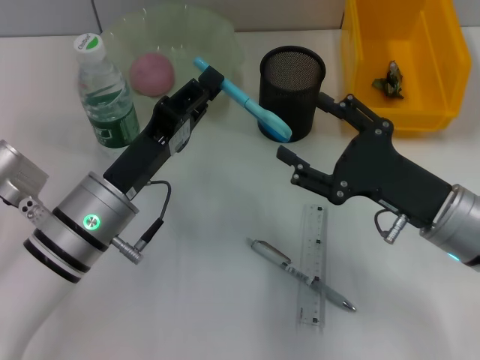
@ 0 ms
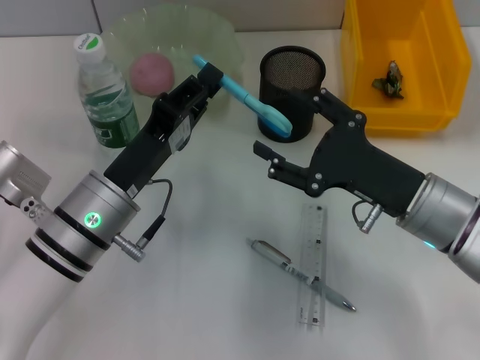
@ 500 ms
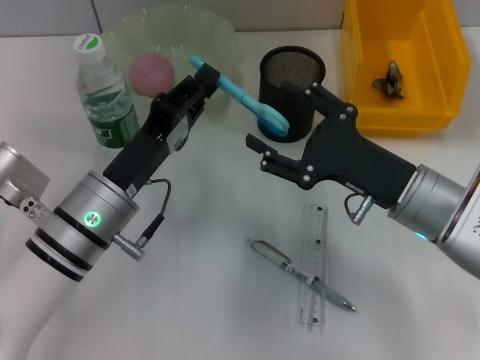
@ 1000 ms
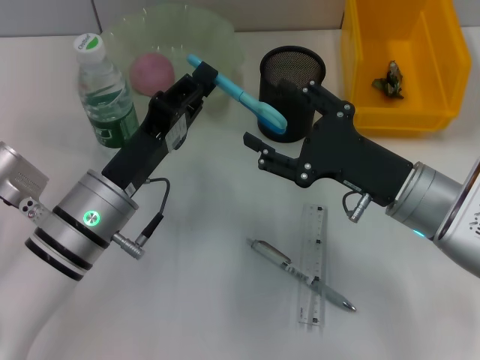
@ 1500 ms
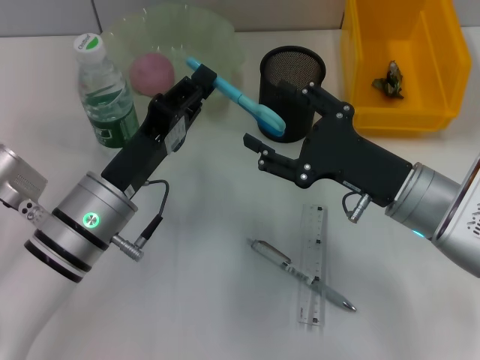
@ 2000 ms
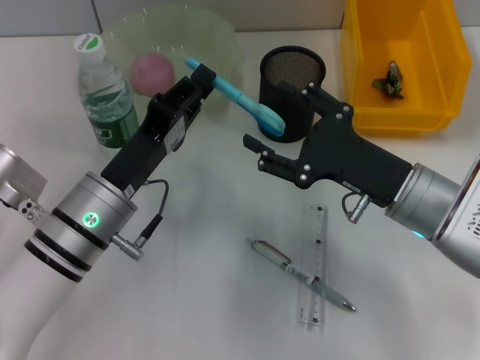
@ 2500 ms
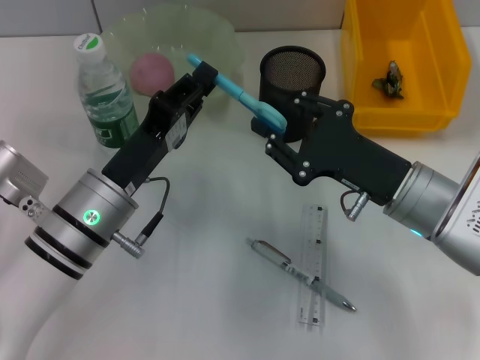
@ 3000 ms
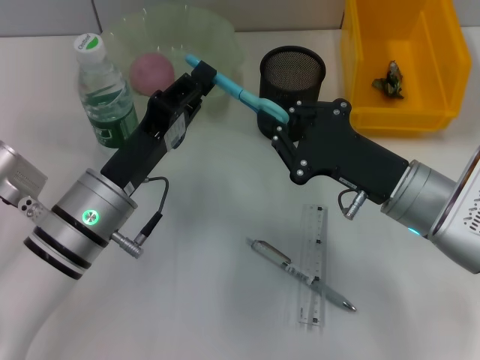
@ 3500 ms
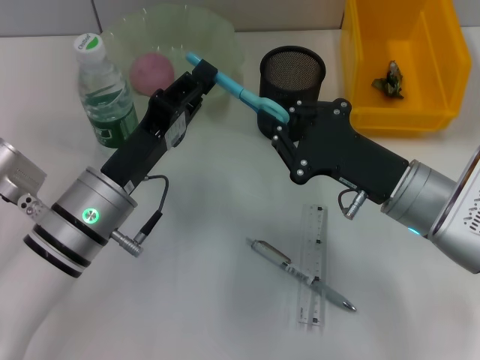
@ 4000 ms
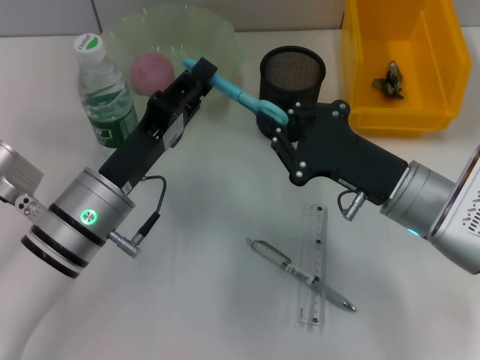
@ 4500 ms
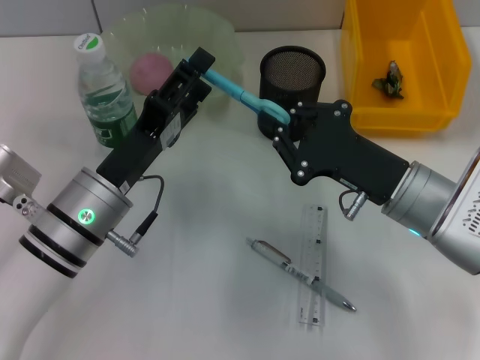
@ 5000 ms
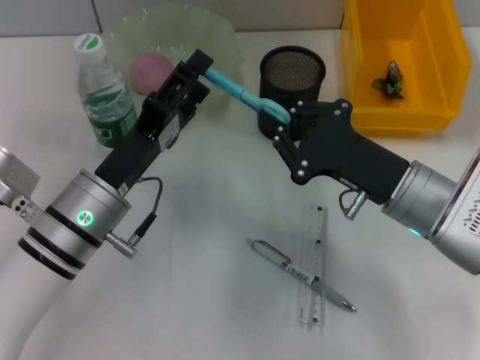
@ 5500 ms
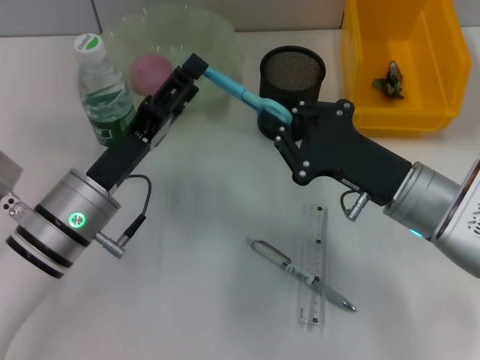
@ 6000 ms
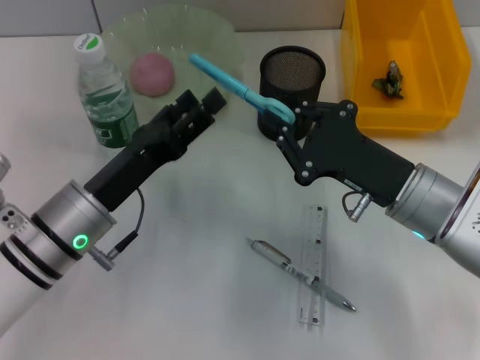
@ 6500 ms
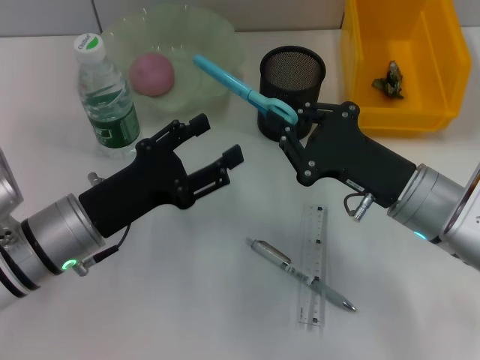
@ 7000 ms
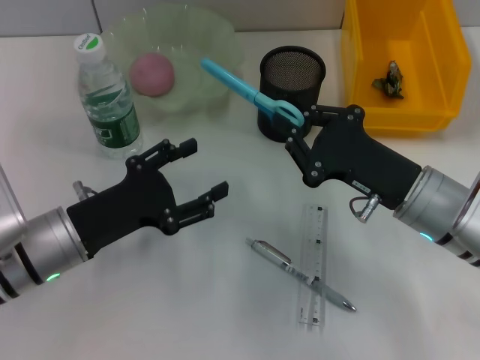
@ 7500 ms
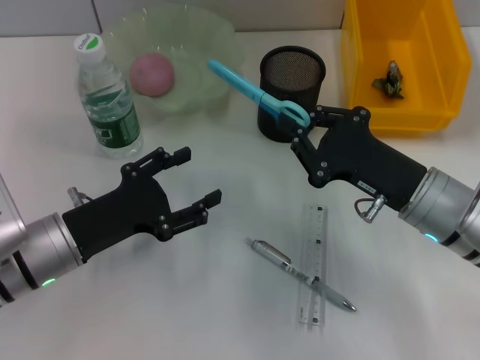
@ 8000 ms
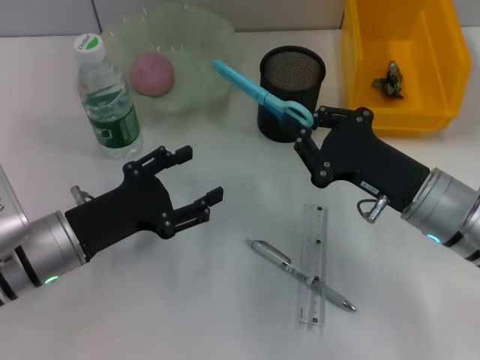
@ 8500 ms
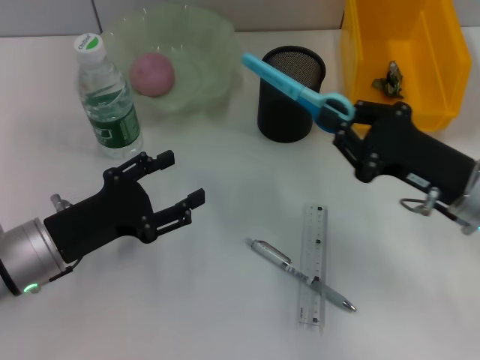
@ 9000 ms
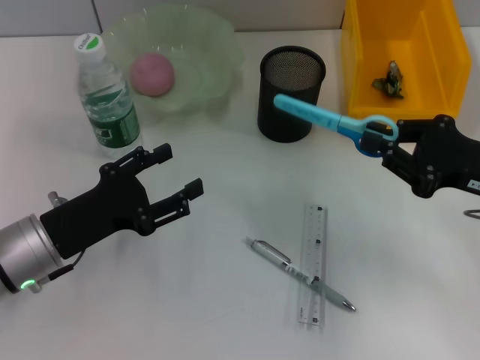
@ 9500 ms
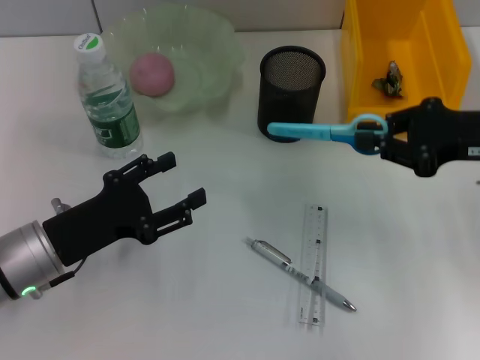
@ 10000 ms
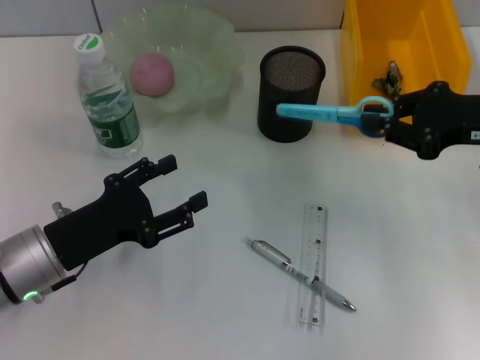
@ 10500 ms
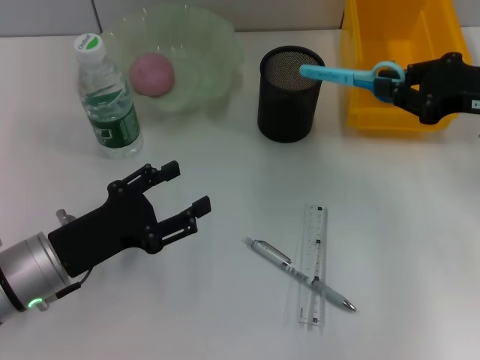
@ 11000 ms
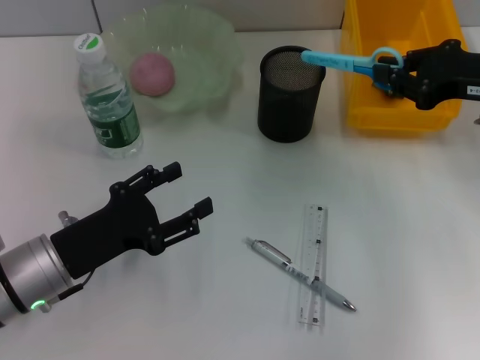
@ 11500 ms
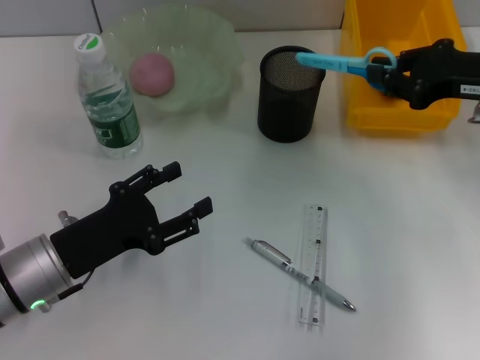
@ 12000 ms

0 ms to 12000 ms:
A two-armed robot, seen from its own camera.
Step, 0 ms to 5000 ms: Pass the blue scissors from the left hand to the right hand.
0 ms to 2000 ms: There are only small adjustments of the grippers.
2000 ms to 4000 ms: The right gripper closes its fingers.
4000 ms to 6000 ms: The left gripper opens.
6000 ms to 8000 ms: The left gripper shifts by approximately 5 cm.
8000 ms to 10000 ms: The right gripper goes about 15 cm to the right and upward.
10000 ms to 12000 ms: There are only small adjustments of the grippers.

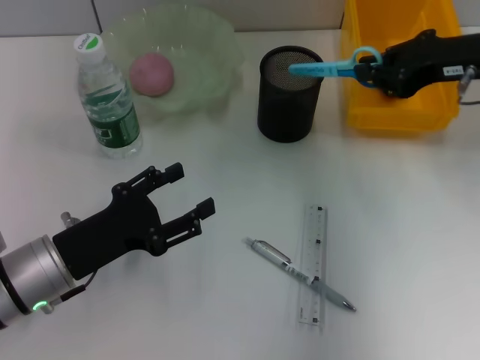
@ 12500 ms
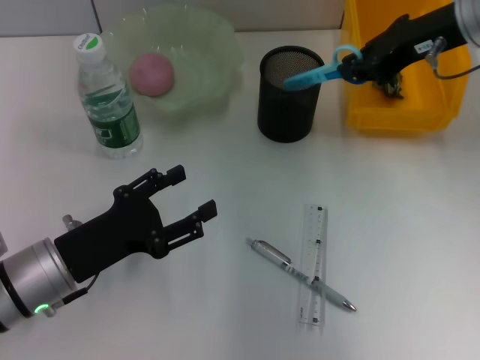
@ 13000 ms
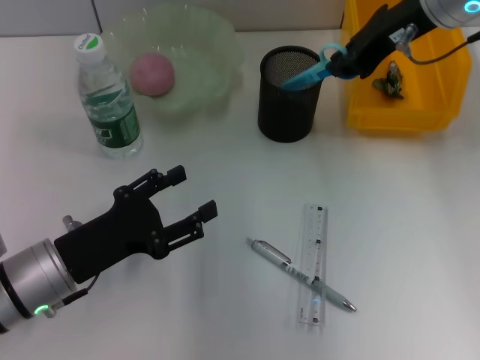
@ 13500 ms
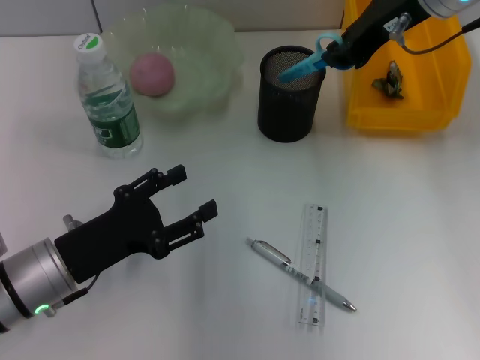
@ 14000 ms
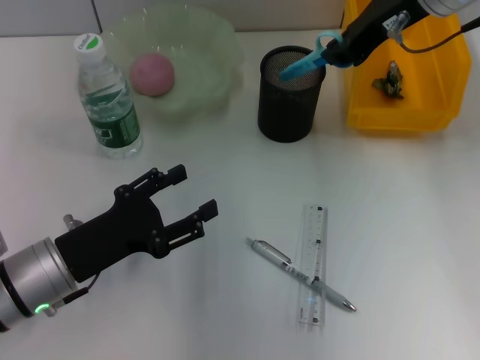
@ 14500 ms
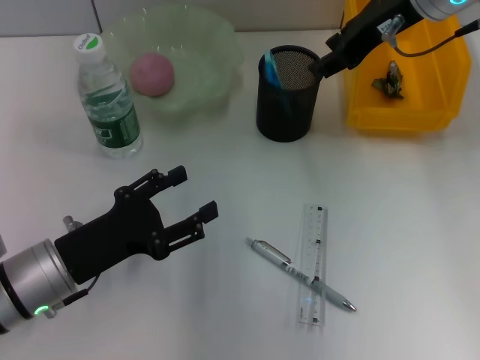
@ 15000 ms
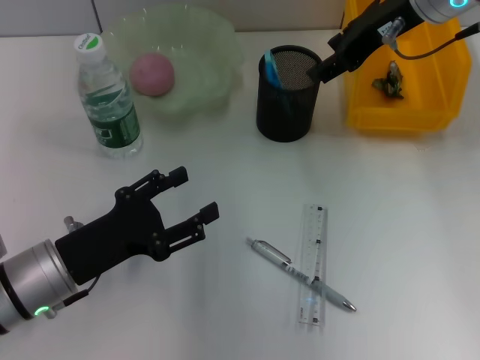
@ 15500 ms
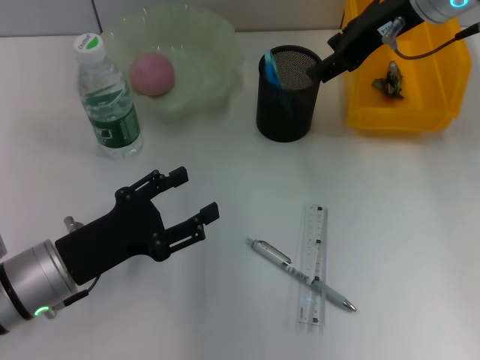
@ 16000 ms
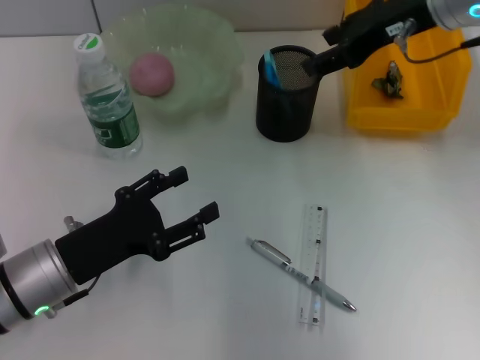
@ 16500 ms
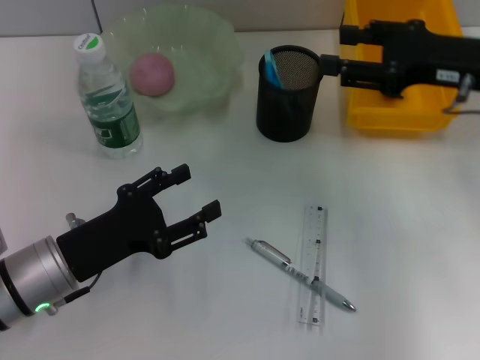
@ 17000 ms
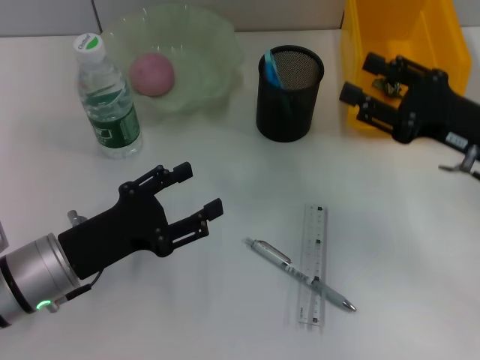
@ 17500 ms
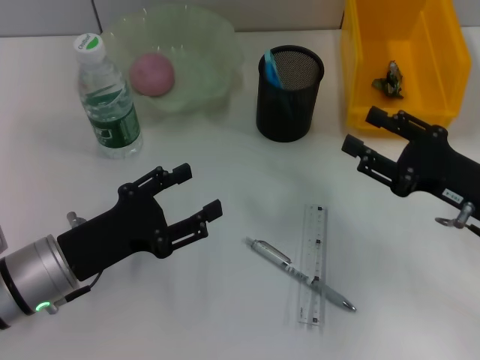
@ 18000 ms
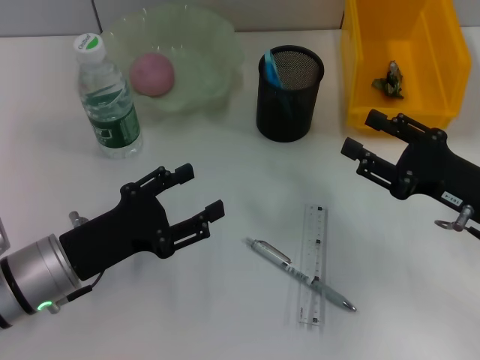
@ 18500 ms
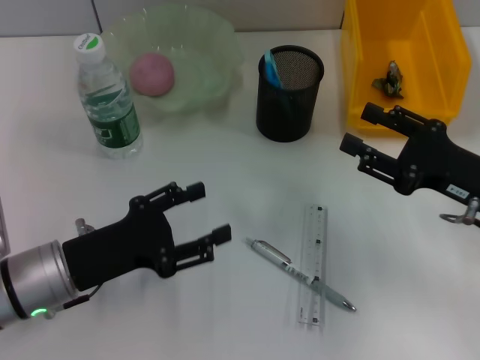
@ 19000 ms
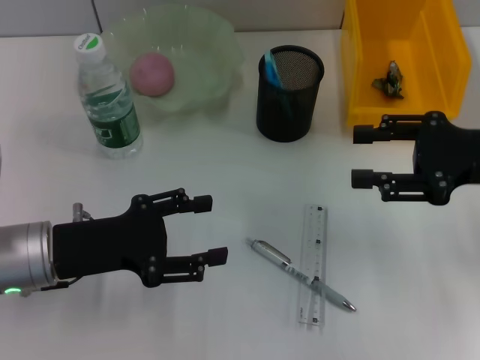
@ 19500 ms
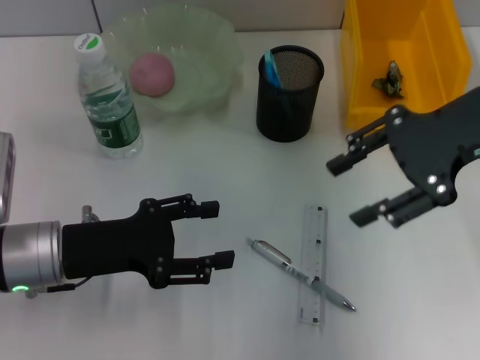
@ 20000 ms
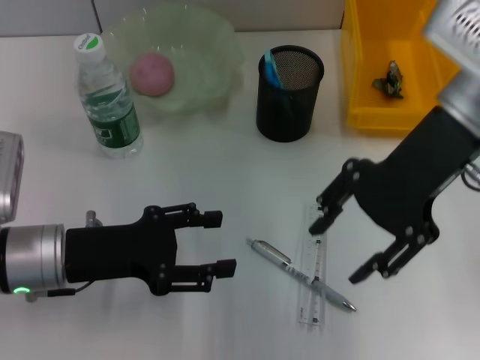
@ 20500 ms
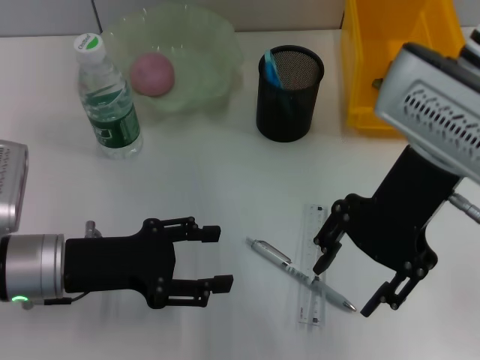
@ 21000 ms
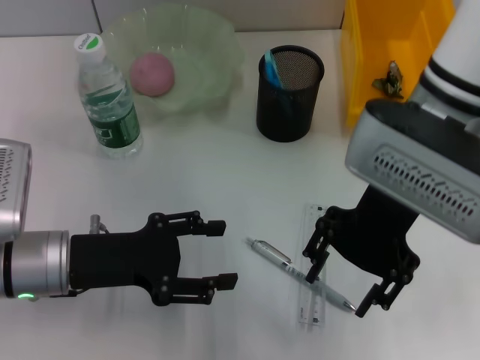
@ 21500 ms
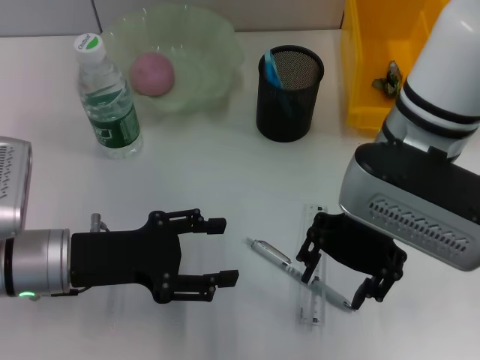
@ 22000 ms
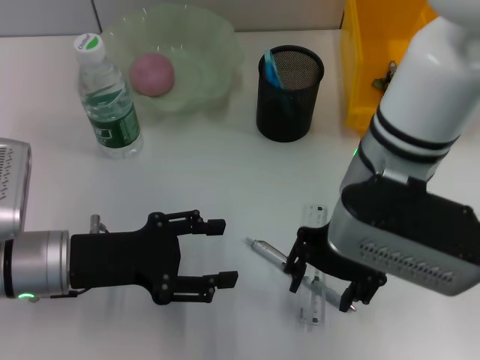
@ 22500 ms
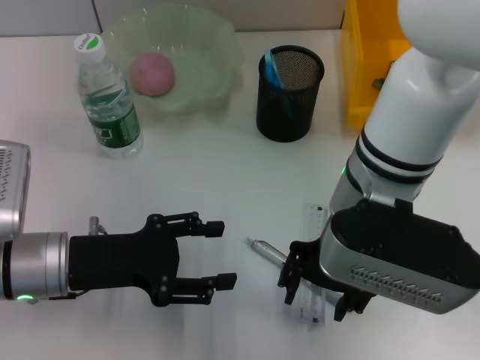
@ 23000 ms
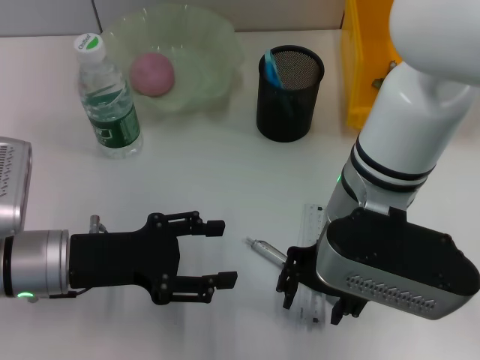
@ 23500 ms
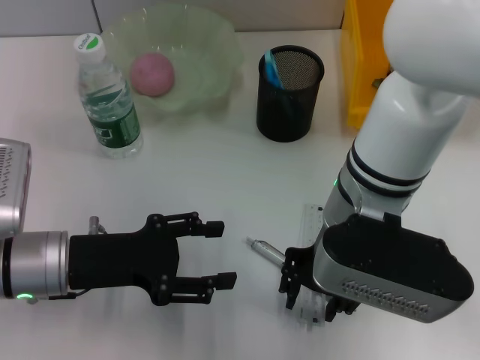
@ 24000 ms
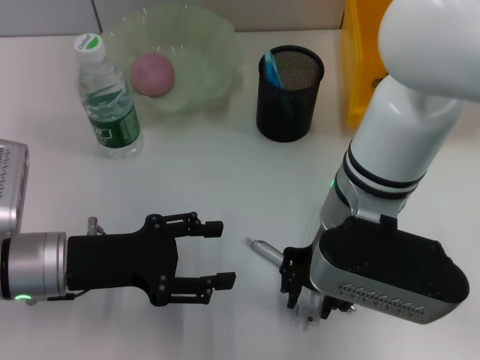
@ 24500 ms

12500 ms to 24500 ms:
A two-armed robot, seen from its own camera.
Step, 12500 ms to 15000 ms: Place the blue scissors into the pen holder with the right hand.
12500 ms to 14500 ms: The right gripper heads to the left and upward, covering about 10 cm.
14500 ms to 16500 ms: The right gripper opens its fingers.
16500 ms to 18500 ms: The right gripper moves downward, backward and to the right, approximately 25 cm.
18500 ms to 20500 ms: The right gripper travels upward, to the left and forward by about 20 cm.
20500 ms to 22500 ms: The right gripper heads to the left and downward, covering approximately 10 cm.

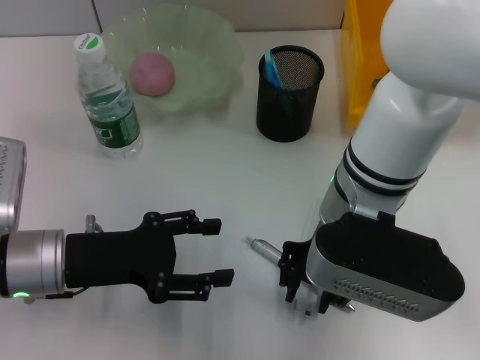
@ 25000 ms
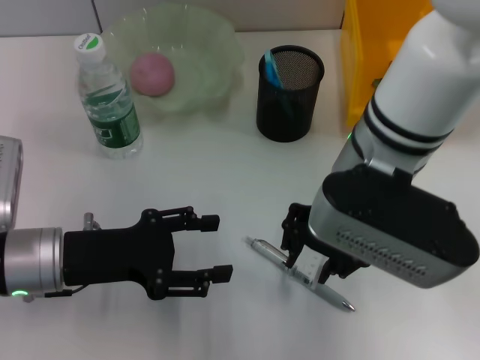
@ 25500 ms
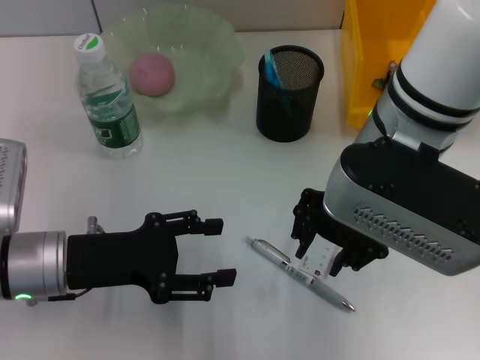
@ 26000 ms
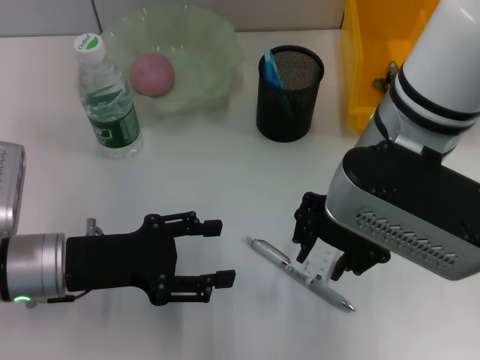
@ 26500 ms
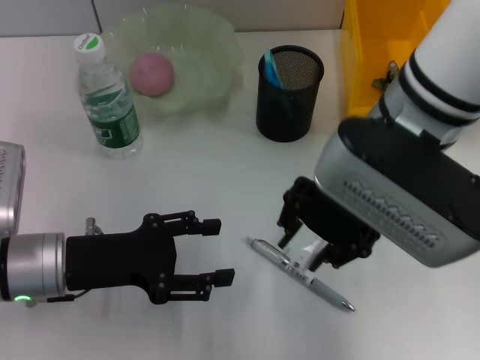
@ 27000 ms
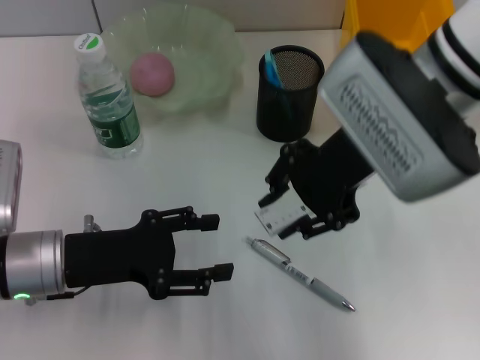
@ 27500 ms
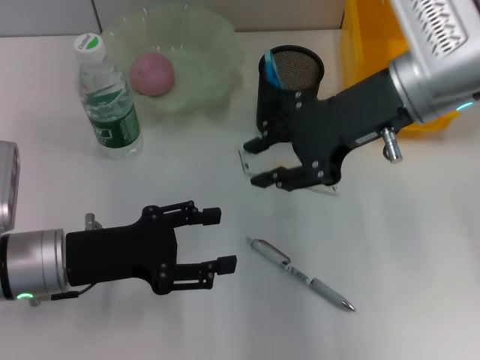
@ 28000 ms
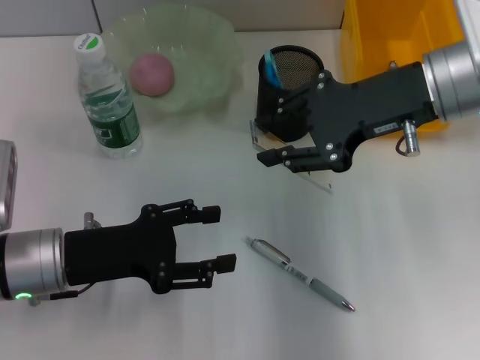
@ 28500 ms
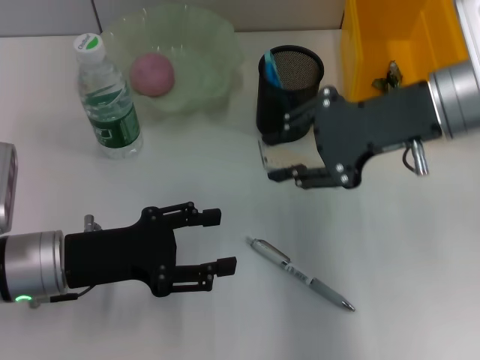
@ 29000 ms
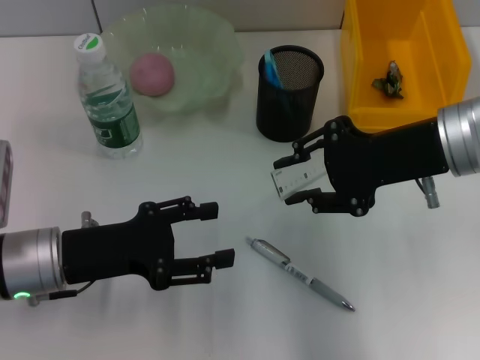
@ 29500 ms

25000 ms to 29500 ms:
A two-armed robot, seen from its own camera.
25000 ms to 27000 ms: The right gripper goes some 5 cm upward.
27000 ms to 29500 ms: The right gripper moves to the right, about 10 cm.
